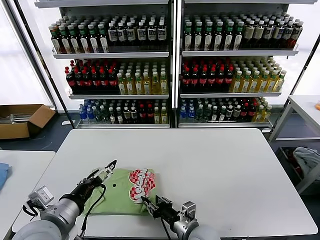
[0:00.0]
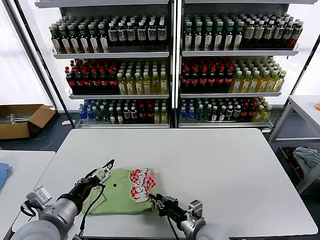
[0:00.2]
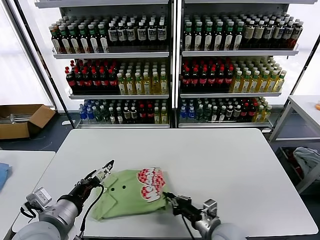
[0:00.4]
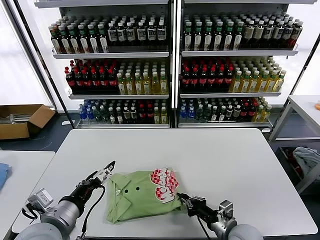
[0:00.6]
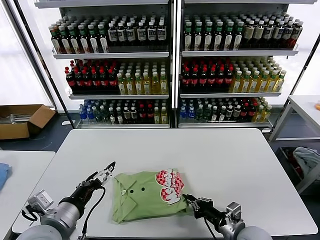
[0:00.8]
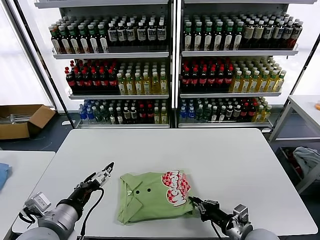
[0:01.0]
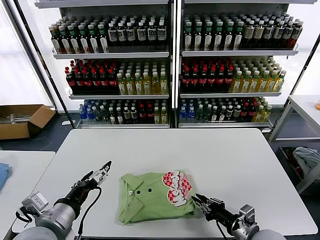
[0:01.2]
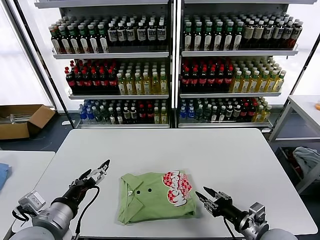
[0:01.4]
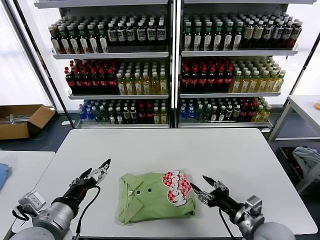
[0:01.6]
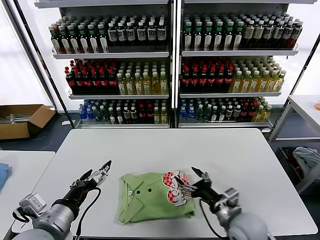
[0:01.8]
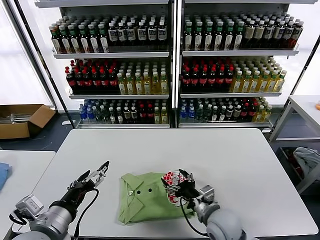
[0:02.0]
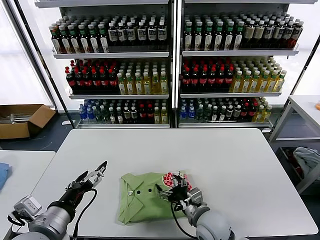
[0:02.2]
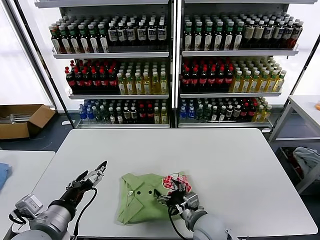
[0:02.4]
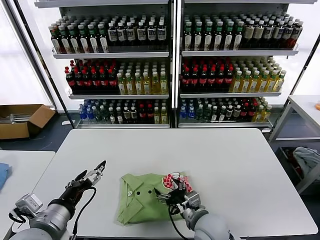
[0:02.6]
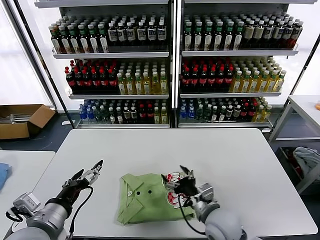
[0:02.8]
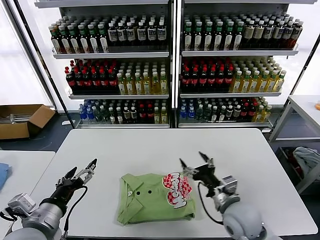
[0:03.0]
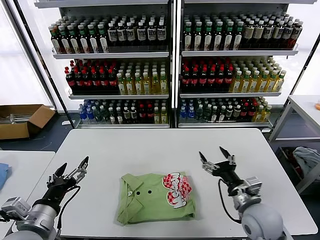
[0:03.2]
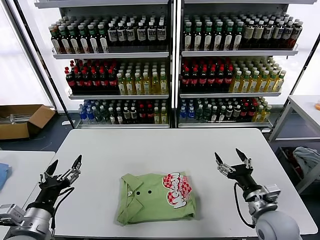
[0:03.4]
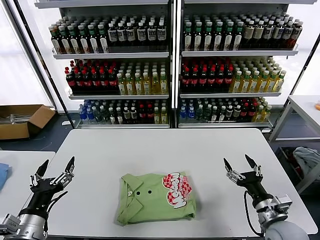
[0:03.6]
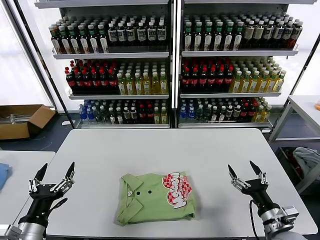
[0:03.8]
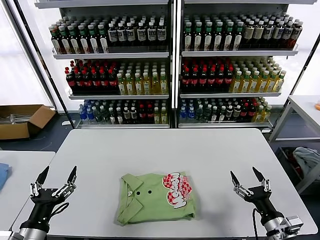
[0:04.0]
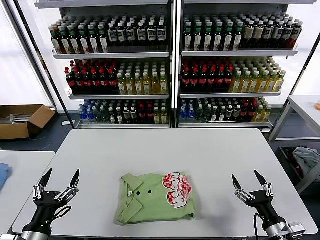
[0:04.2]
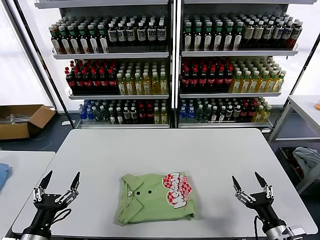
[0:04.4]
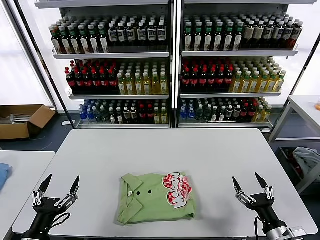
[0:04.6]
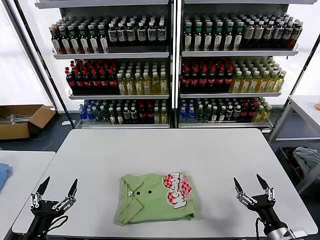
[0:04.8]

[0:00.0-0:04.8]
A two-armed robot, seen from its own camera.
Task of the whole recording: fold and organize the clothes.
Step, 0:00.0 to 0:02.6: Drag the clothes to the center of the table.
0:00.0 to 0:01.6: The right gripper travels to the right and upward by some 20 cm, and closes and opens again.
0:01.6 to 0:03.2: The right gripper travels forward by approximately 5 cm, reaches some 15 cm to the left, then returns, and opens.
0:03.2 to 0:04.8: The left gripper heads downward and backward, covering roughly 10 cm. Meanwhile the right gripper shifts approximately 15 cm backward, to the right and downward.
